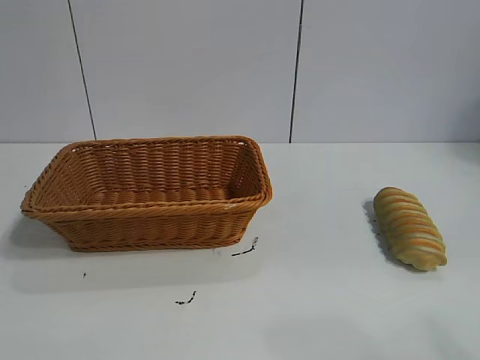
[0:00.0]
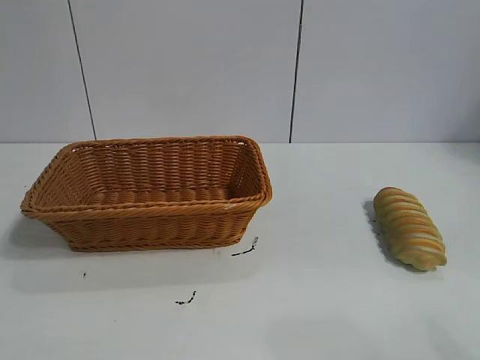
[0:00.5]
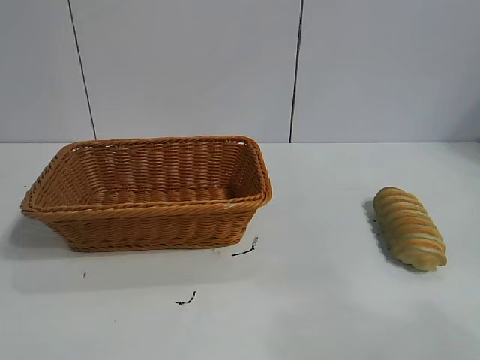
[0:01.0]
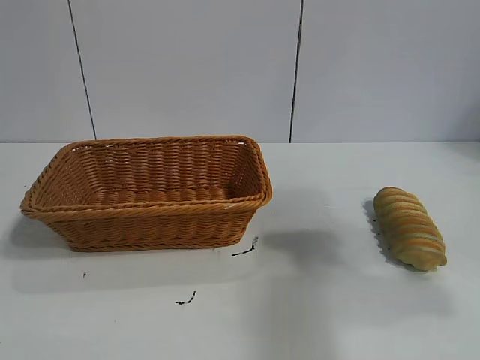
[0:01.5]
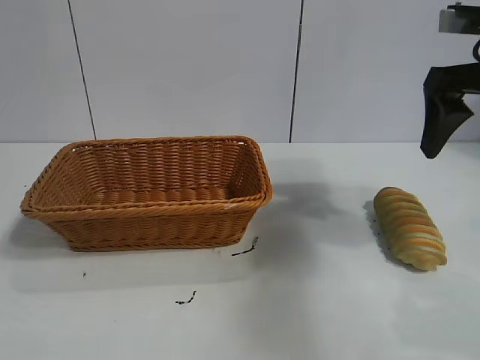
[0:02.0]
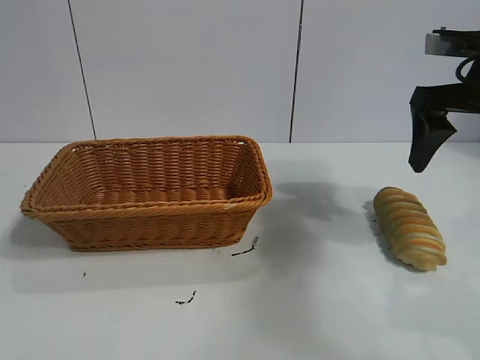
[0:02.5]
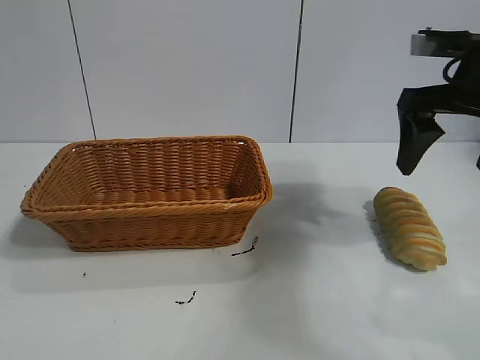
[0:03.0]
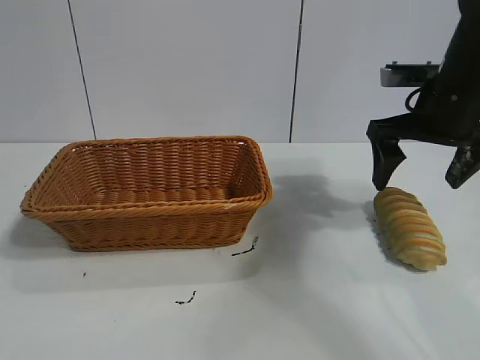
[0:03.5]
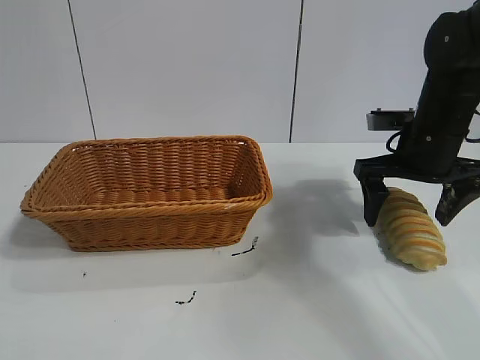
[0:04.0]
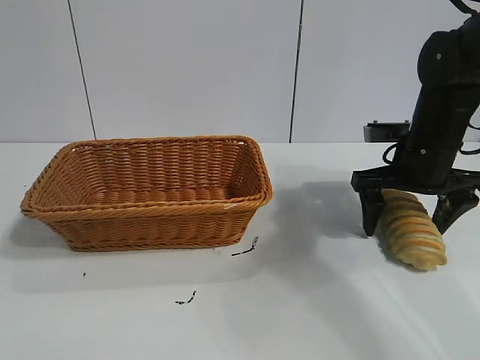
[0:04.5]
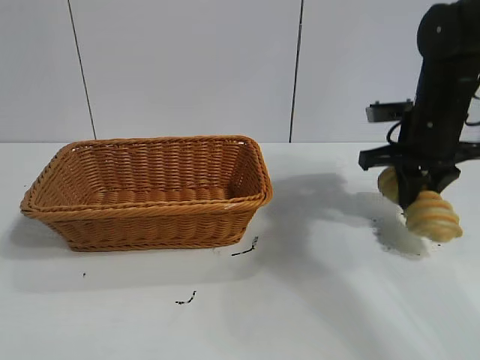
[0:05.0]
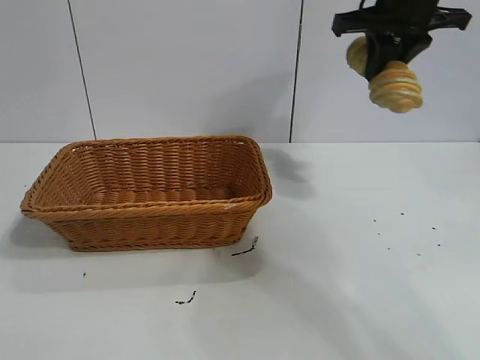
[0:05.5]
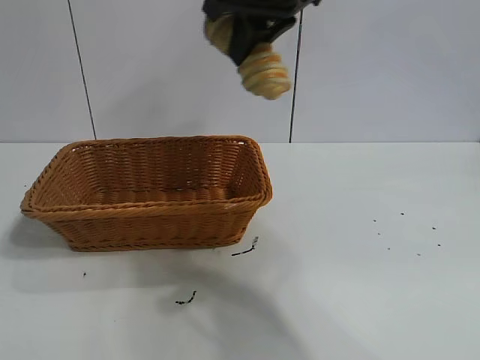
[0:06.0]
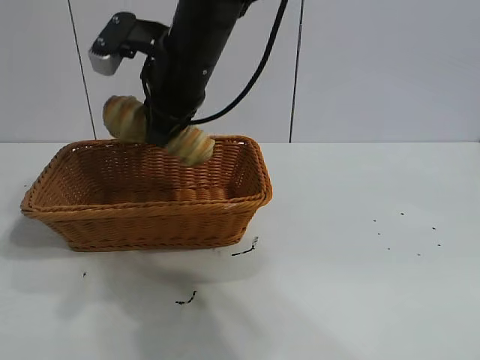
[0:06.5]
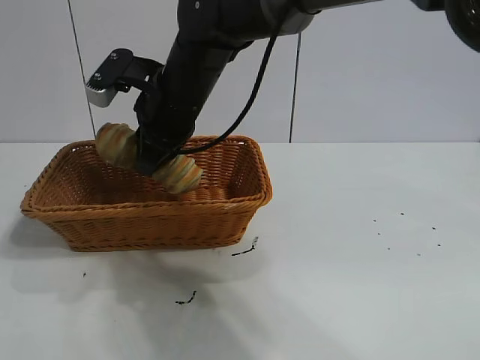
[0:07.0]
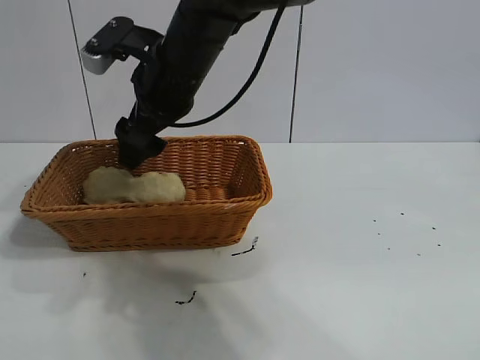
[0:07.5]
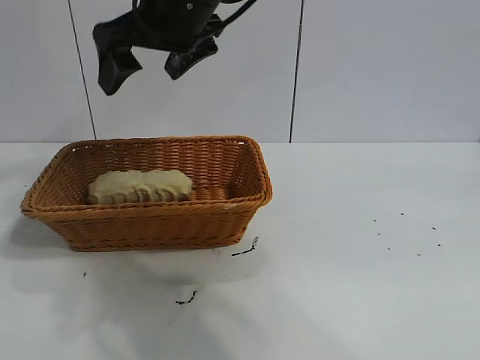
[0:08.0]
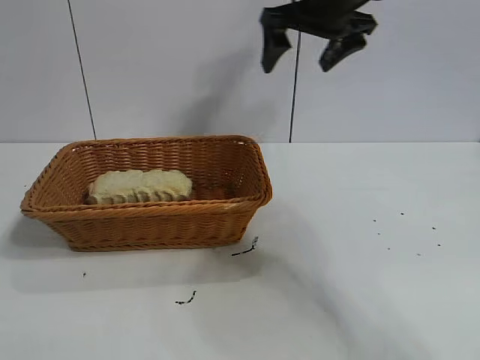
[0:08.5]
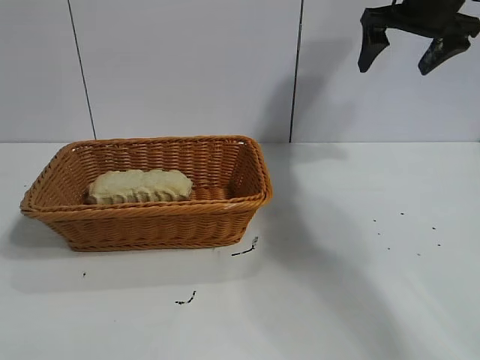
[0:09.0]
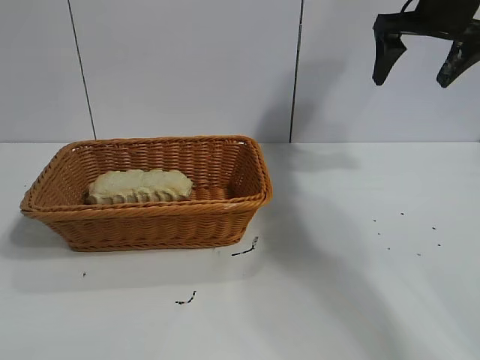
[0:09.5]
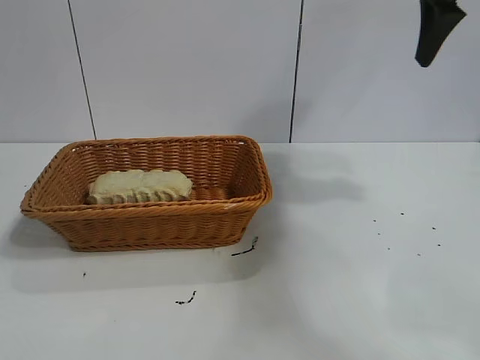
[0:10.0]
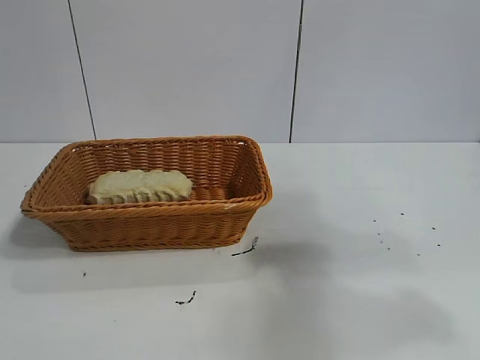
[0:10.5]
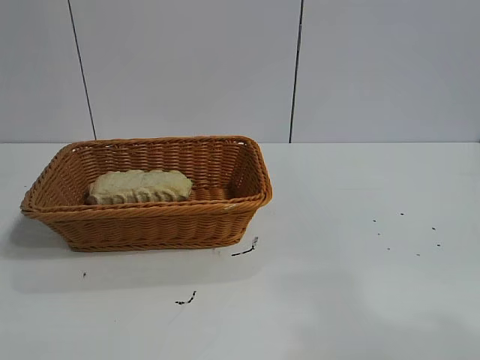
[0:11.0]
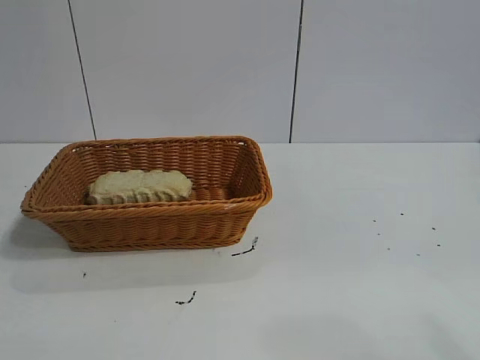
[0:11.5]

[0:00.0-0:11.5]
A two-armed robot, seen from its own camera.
Task of the whole recording: pick up the long bread and put it into the basket.
Step, 0:02.0 to 0:04.5: Grasp the long bread with right gripper.
Step, 0:05.0 to 0:08.0: Place the long bread in the basket with right gripper.
